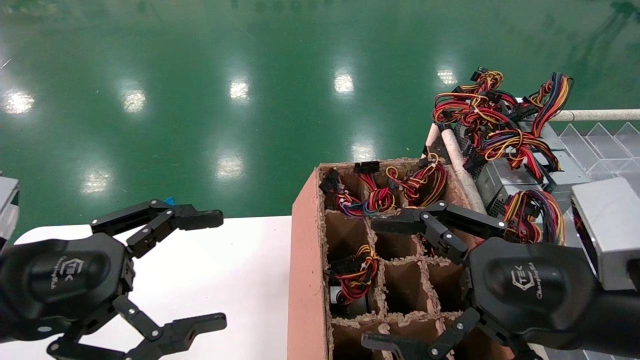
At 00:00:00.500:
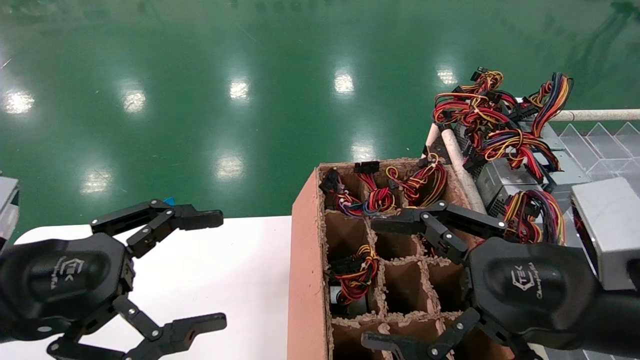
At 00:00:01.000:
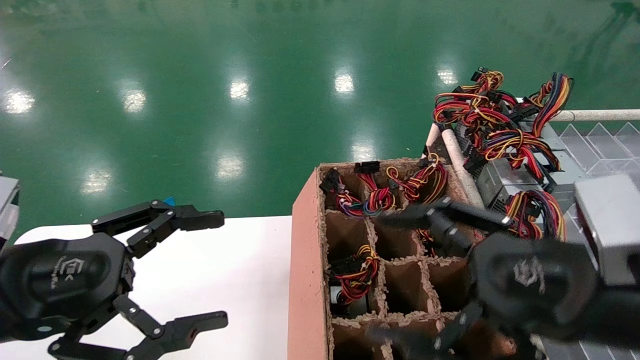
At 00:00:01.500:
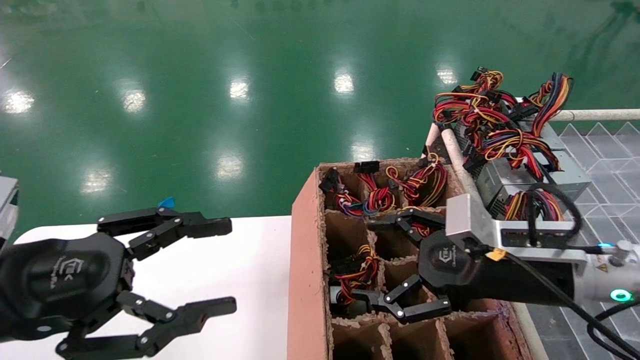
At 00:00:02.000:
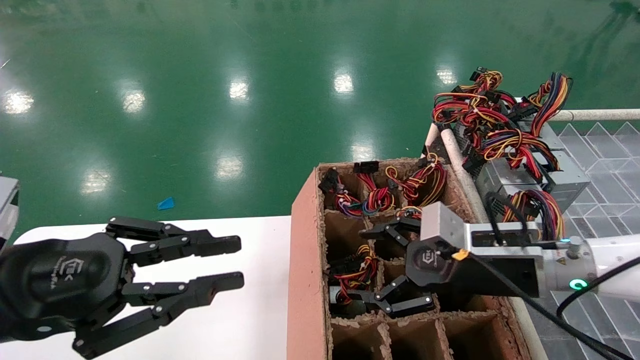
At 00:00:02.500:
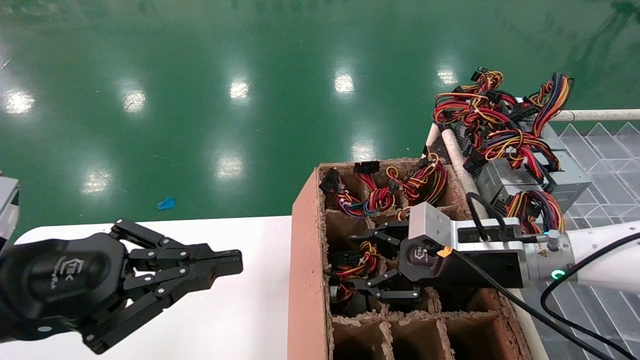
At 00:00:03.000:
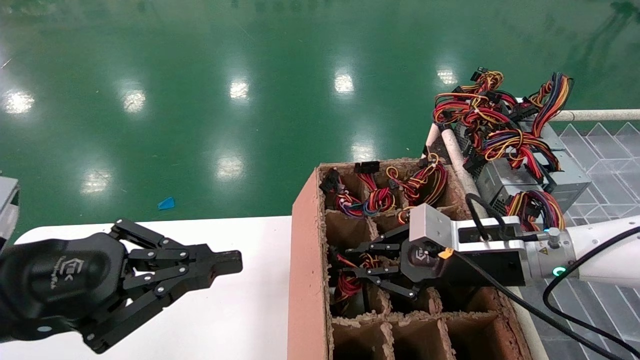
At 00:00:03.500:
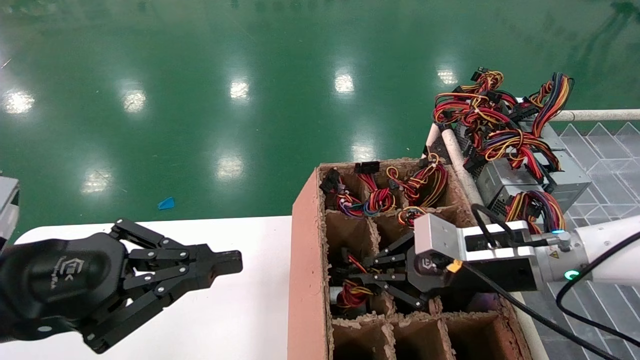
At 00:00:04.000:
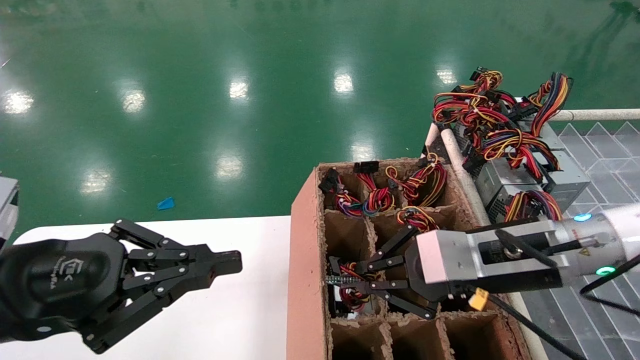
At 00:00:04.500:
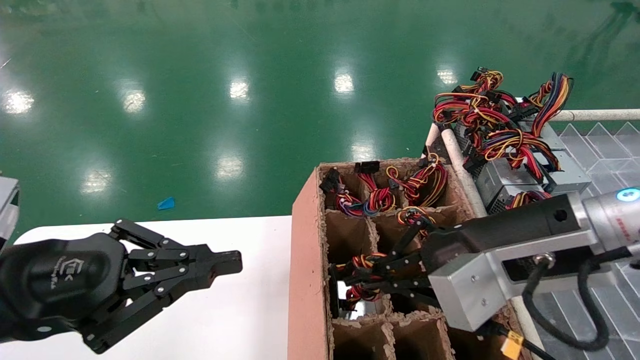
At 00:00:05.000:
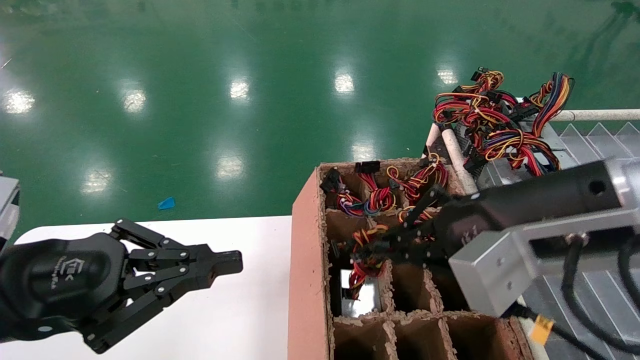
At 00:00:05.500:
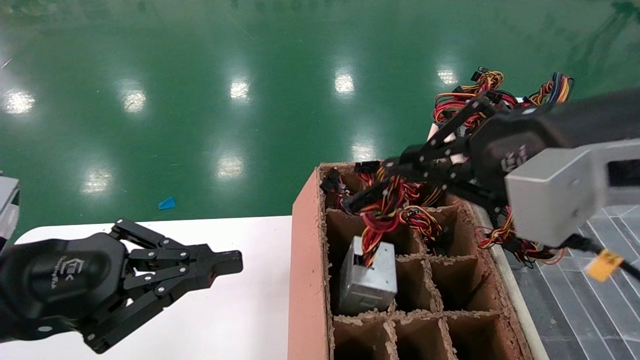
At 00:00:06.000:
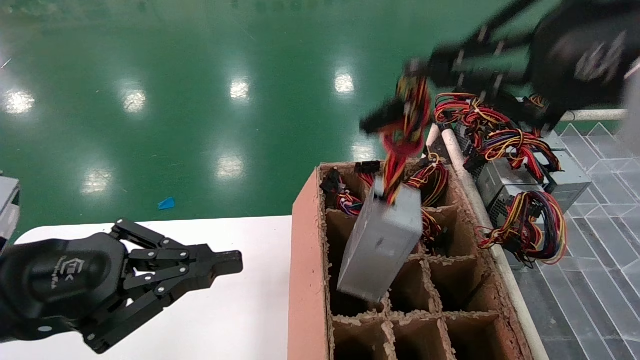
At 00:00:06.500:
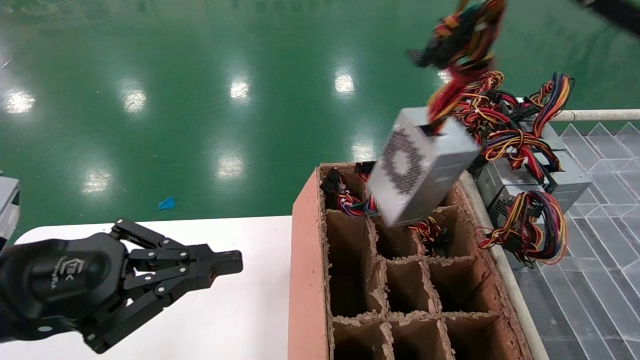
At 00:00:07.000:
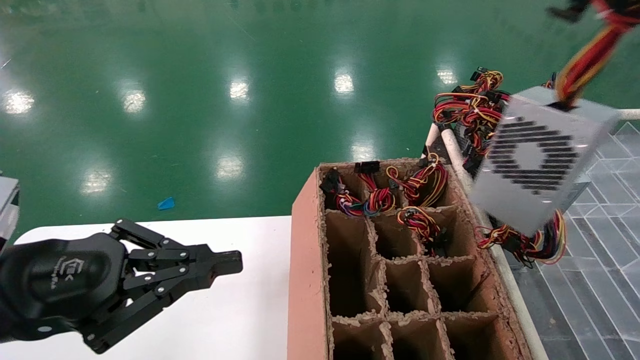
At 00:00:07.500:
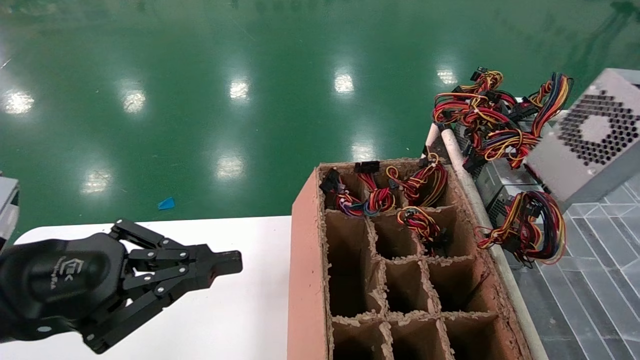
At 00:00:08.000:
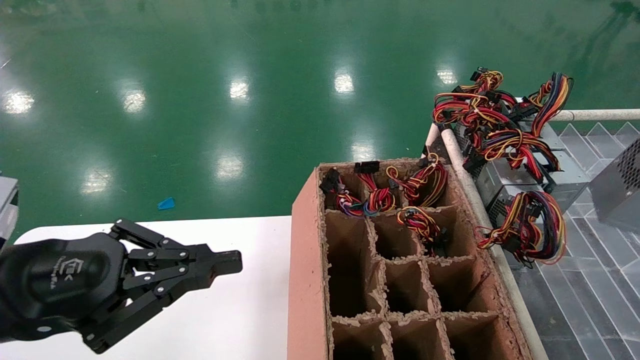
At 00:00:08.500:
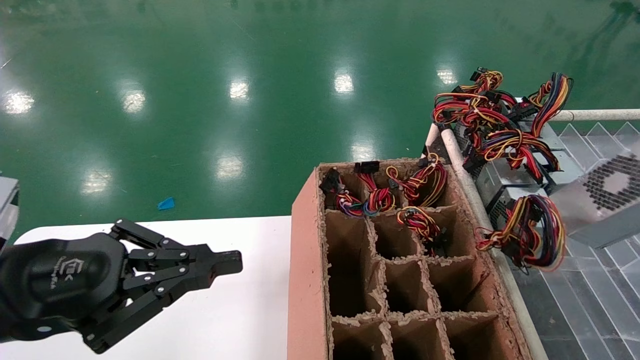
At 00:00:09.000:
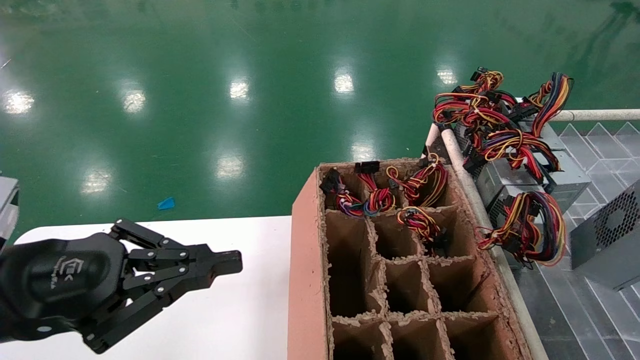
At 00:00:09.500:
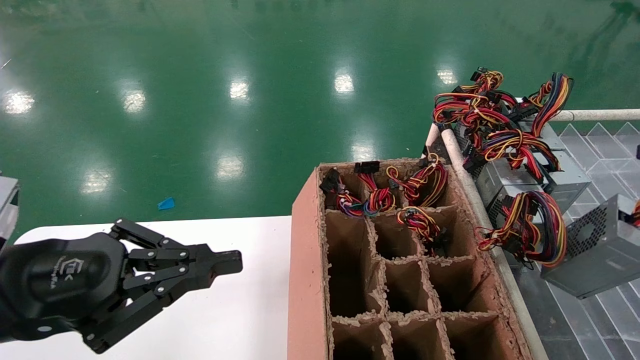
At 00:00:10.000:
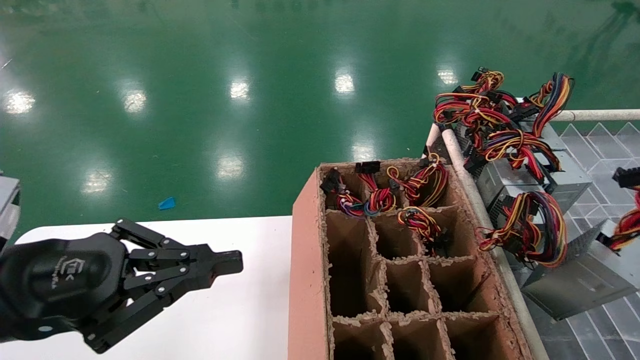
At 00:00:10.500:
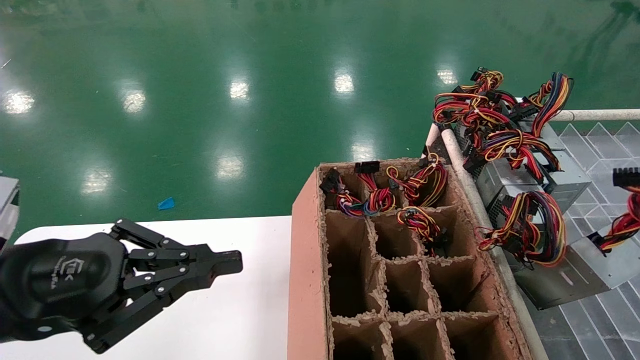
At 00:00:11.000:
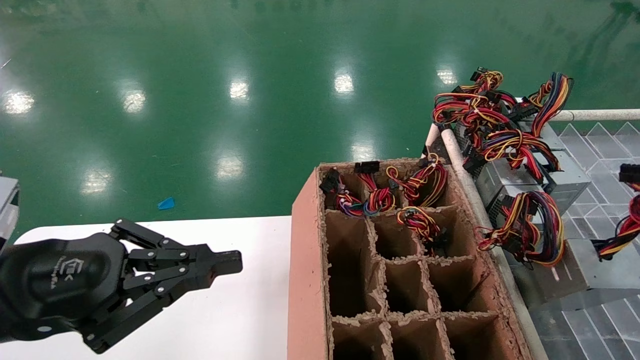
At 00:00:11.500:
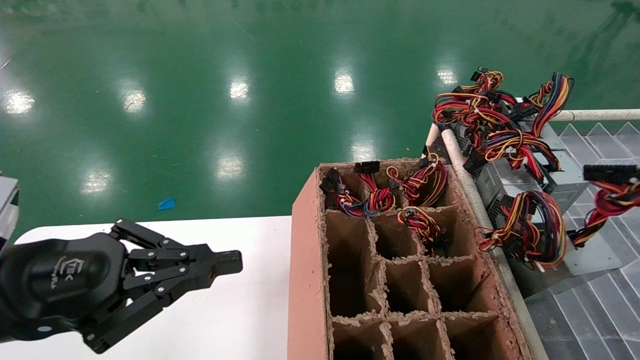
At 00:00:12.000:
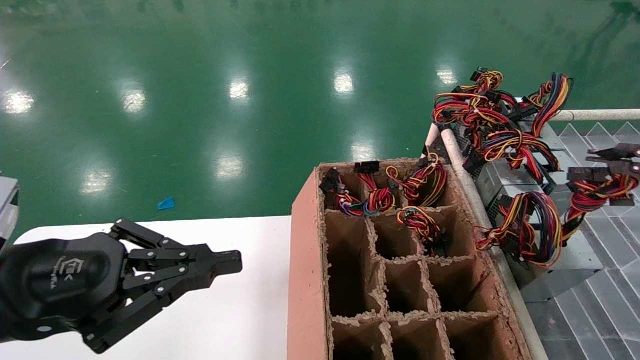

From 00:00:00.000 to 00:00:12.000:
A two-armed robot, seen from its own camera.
Step, from 00:00:01.500 to 00:00:03.000: Grab the main unit power supply from the containment box.
From 00:00:00.000 to 00:00:02.000: The left gripper closes its fingers, while the right gripper shifts approximately 15 cm forward and downward.
From 00:00:02.000 to 00:00:04.000: The left gripper closes up, while the right gripper goes roughly 5 cm upward, and closes its fingers.
From 00:00:04.000 to 00:00:06.000: The right gripper shifts approximately 25 cm upward and backward.
From 00:00:06.000 to 00:00:08.000: The right gripper goes some 25 cm to the right and backward.
From 00:00:08.000 to 00:00:10.000: The right gripper goes approximately 10 cm downward.
From 00:00:10.000 to 00:00:12.000: The right gripper travels forward by roughly 10 cm.

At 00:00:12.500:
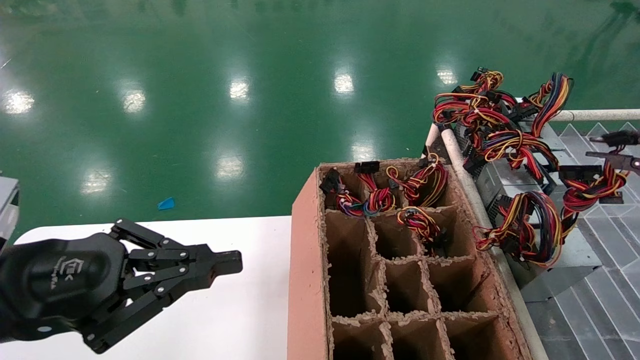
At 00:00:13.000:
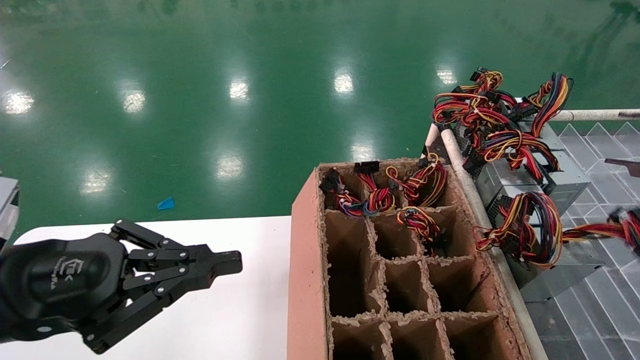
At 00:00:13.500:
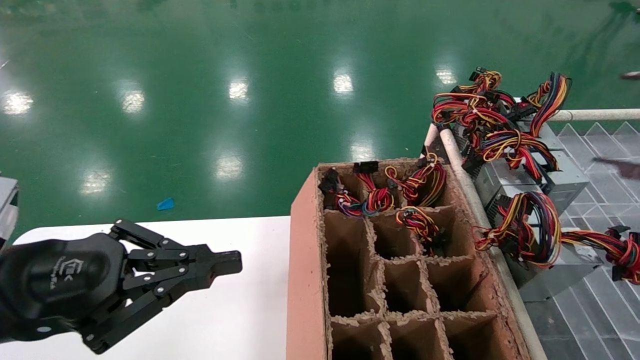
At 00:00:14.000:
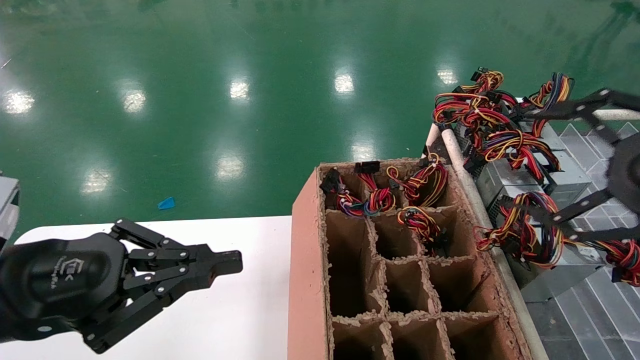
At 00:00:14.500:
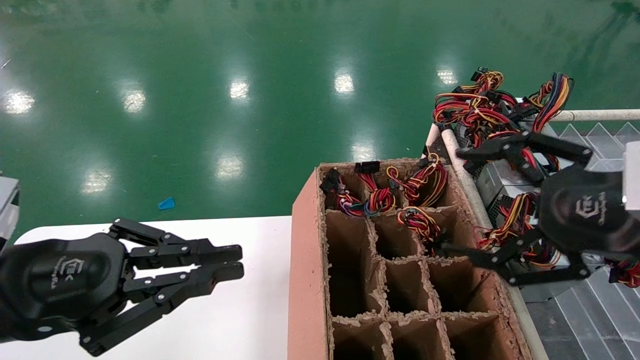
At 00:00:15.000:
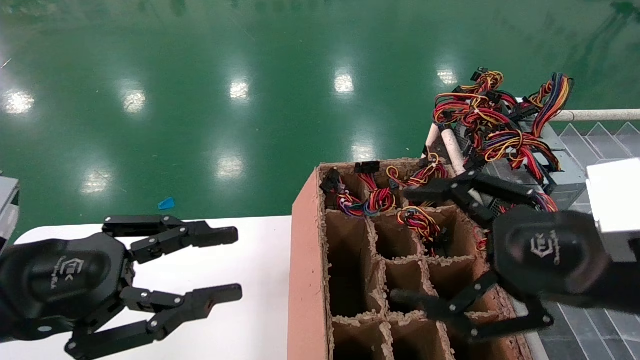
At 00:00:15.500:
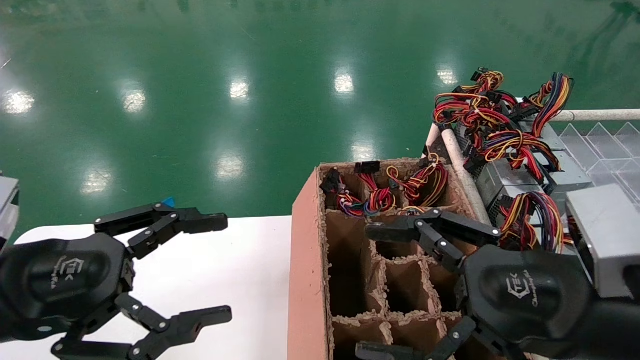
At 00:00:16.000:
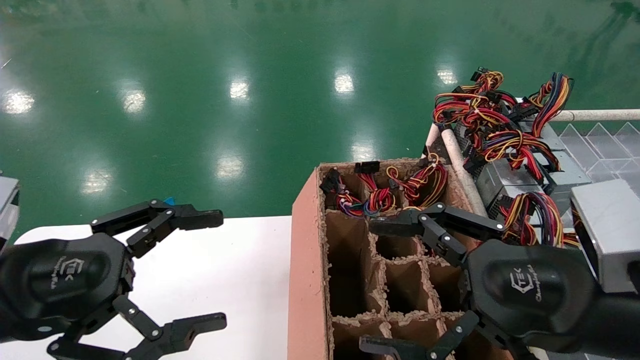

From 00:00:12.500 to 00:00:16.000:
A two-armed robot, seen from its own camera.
From 00:00:12.500 to 00:00:14.500: The right gripper goes about 15 cm to the left, and opens up.
From 00:00:14.500 to 00:00:16.000: The right gripper goes roughly 10 cm to the left and downward. The left gripper opens.
